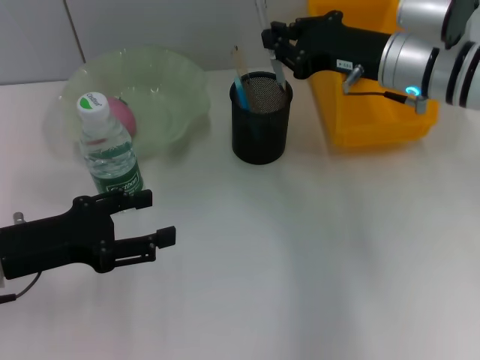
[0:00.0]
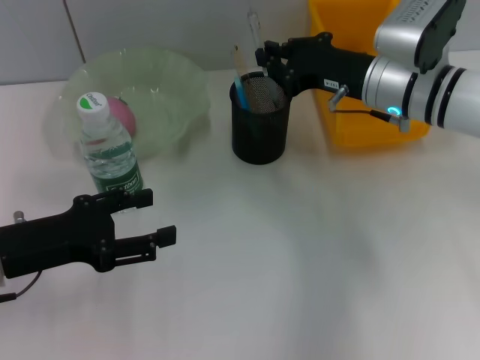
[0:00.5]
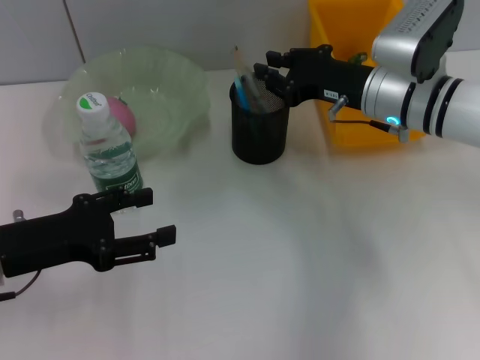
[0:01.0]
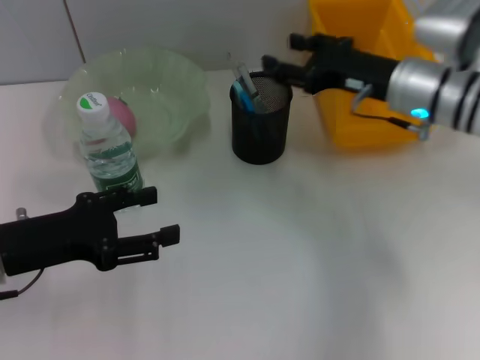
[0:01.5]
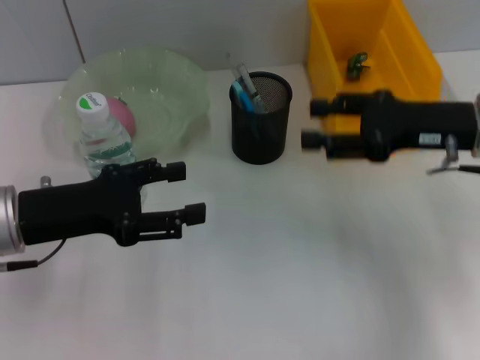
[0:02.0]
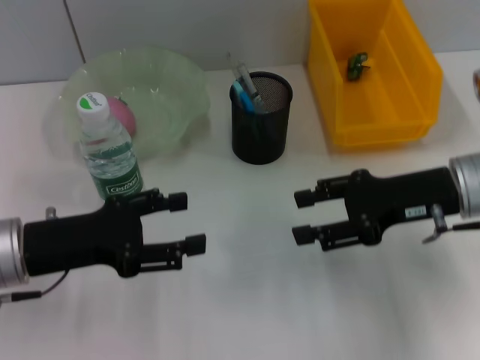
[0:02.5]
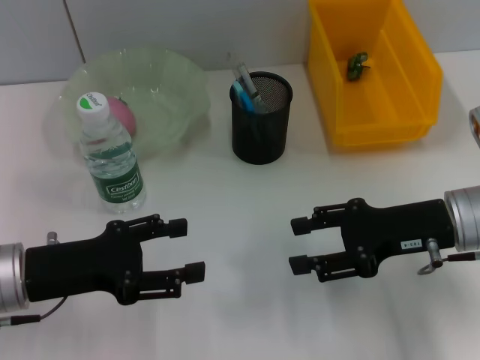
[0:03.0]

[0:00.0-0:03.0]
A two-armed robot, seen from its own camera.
0:00.0 to 0:01.5: The right gripper opens.
0:01.5 to 0:03.0: The right gripper moves backward, some 10 cm.

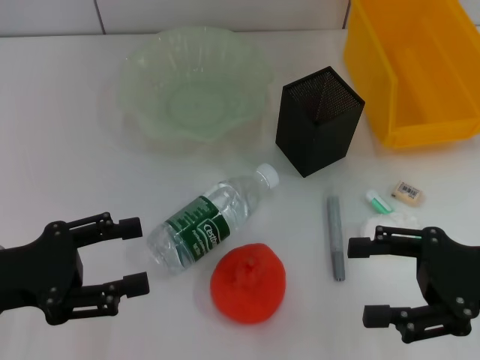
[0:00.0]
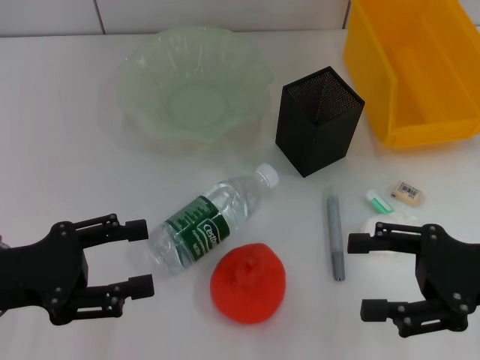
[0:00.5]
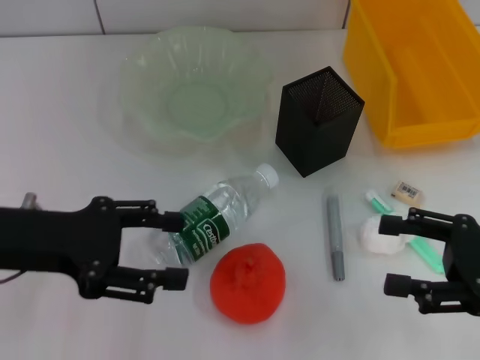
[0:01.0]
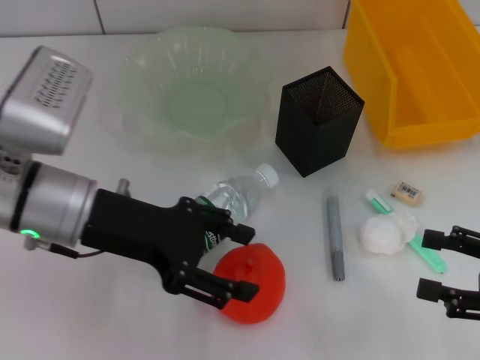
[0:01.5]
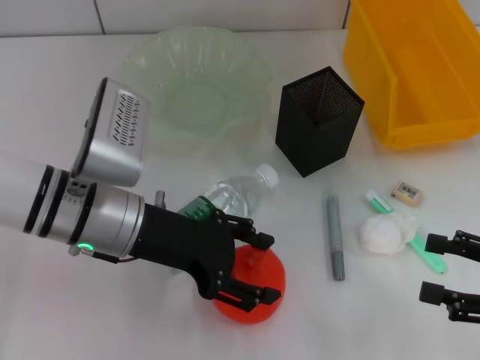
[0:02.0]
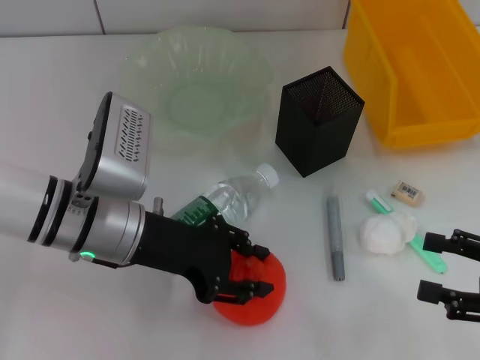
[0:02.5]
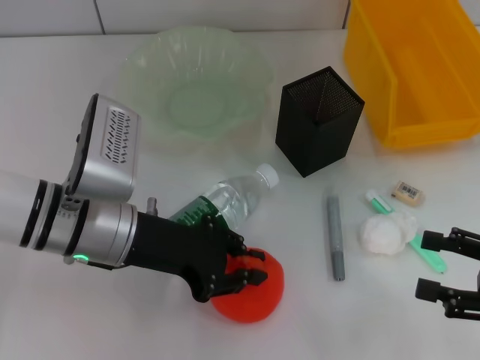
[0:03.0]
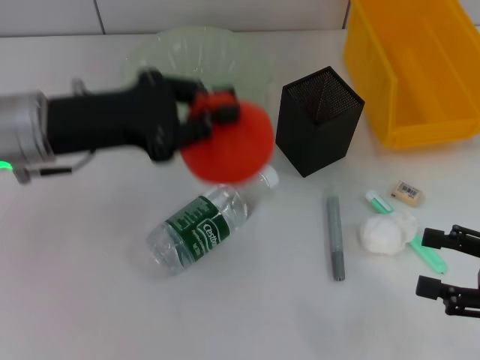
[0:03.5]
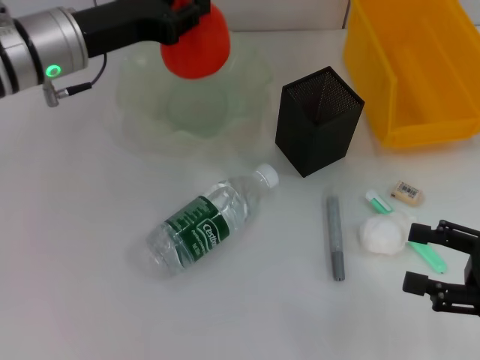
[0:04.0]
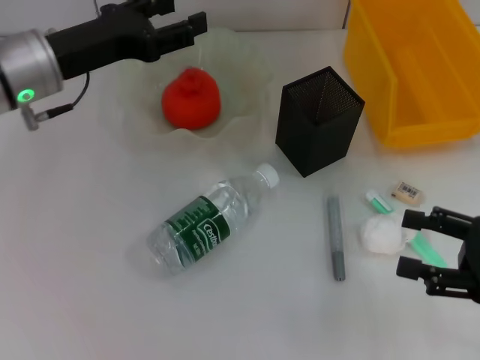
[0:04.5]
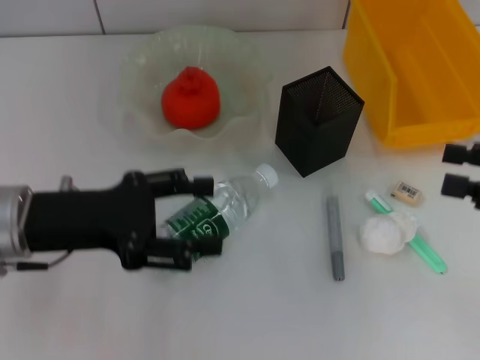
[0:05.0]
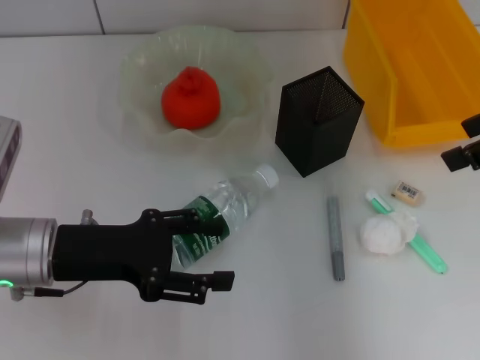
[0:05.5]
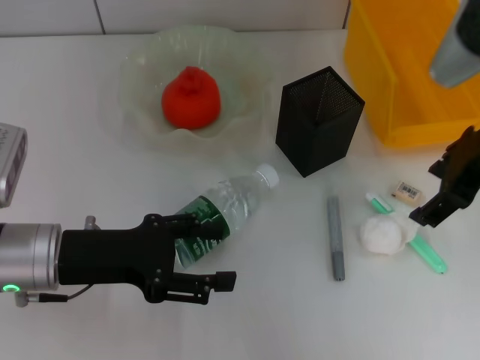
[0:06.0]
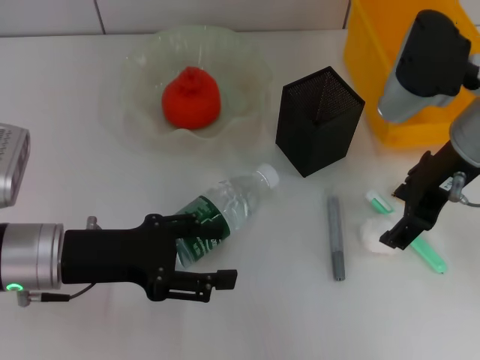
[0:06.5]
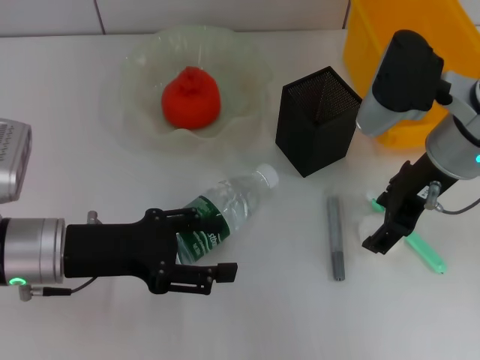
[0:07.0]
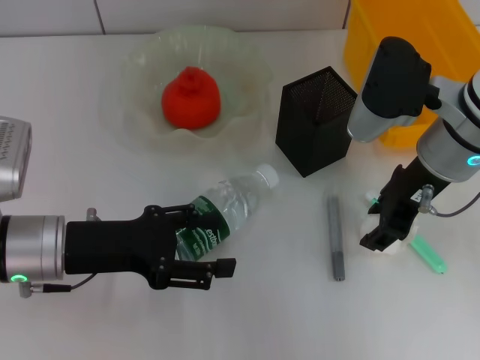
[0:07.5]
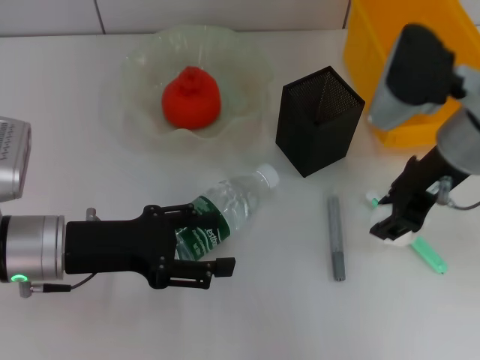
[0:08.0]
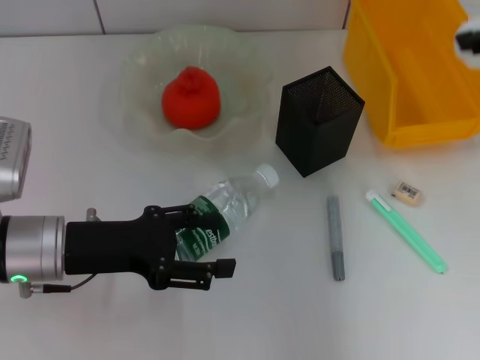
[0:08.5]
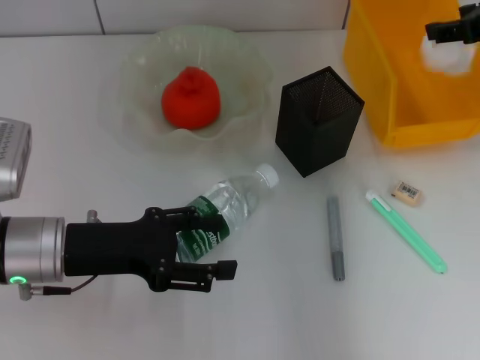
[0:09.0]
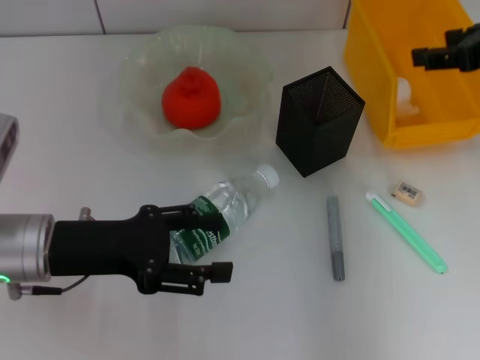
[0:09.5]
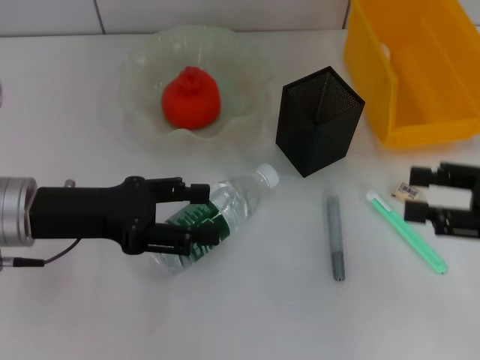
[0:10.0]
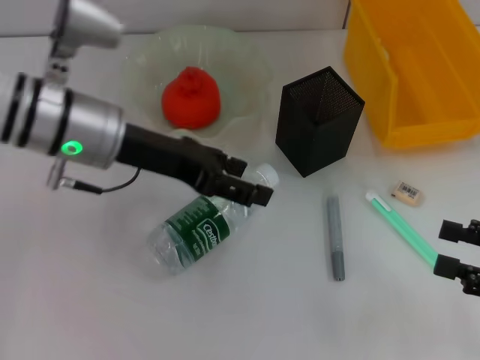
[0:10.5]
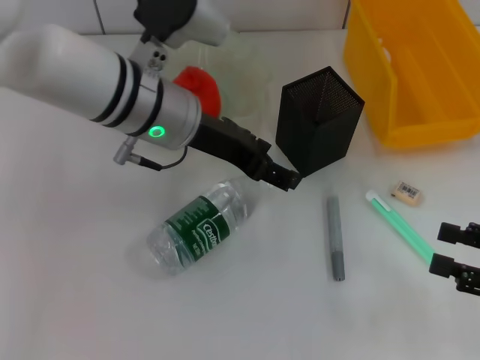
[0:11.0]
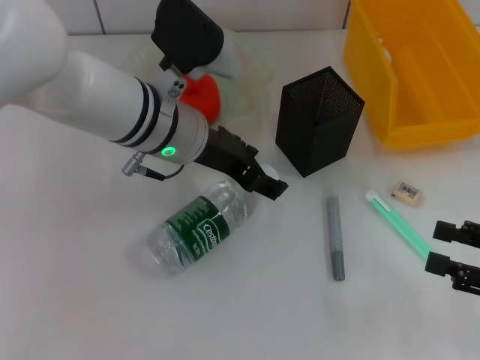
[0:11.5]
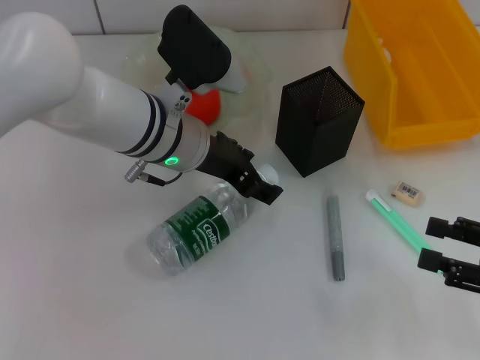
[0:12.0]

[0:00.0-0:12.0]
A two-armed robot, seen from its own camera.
Step, 0:00.0 to 0:03.0: Grab the orange with the left hand.
Step, 0:03.5 to 0:04.0: Place the orange into the fruit bowl with the left hand.
Step, 0:04.5 to 0:07.5: Grab the paper ball with the right hand.
Step, 0:08.0 to 0:09.0: Place the paper ball into the trash can with the right hand.
0:00.0 to 0:02.0: The left gripper shifts some 15 cm to the right and forward, while the right gripper moves to the right, some 5 cm.
0:02.0 to 0:04.0: The left gripper heads forward and upward, covering some 10 cm, and closes.
0:04.0 to 0:06.0: The left gripper moves backward and downward, approximately 15 cm, and opens up. The right gripper goes some 25 cm upward, forward and to the left.
0:06.0 to 0:08.0: The right gripper moves roughly 5 cm, and closes.
0:08.0 to 0:10.0: The right gripper shifts some 15 cm to the right and backward, goes upward and returns, approximately 10 cm each way, and opens up.
0:10.0 to 0:12.0: The left gripper heads to the right and forward, covering about 15 cm. Meanwhile the right gripper moves downward, some 5 cm.

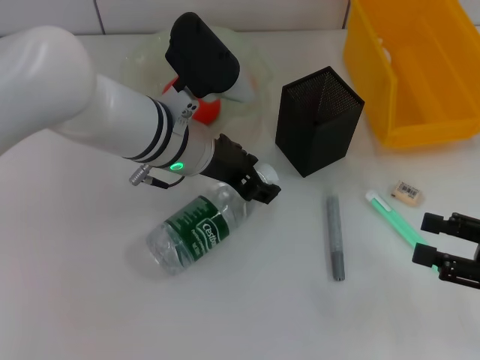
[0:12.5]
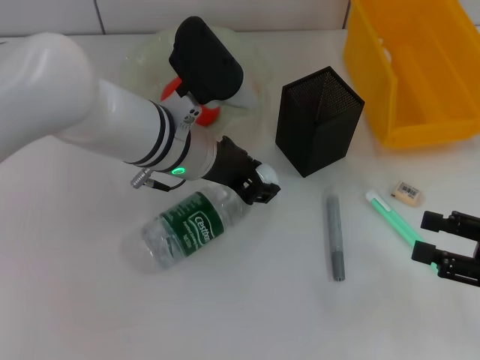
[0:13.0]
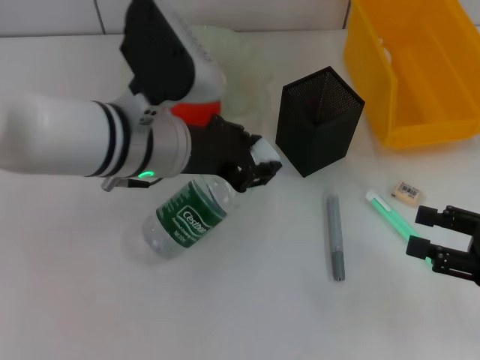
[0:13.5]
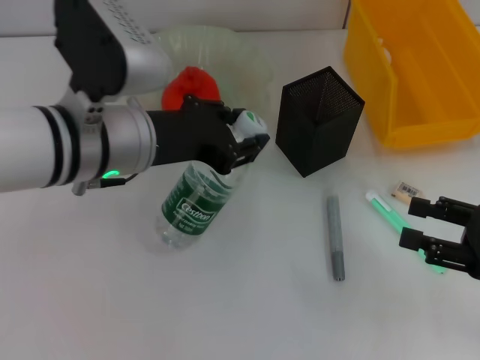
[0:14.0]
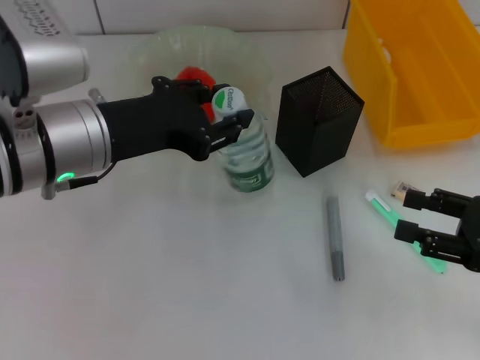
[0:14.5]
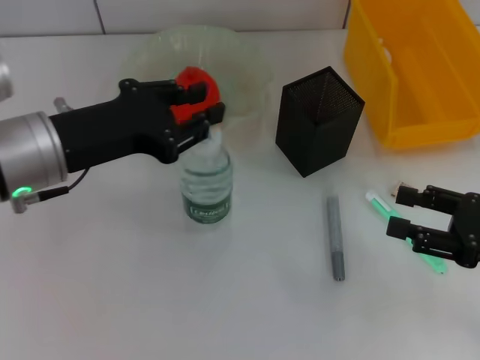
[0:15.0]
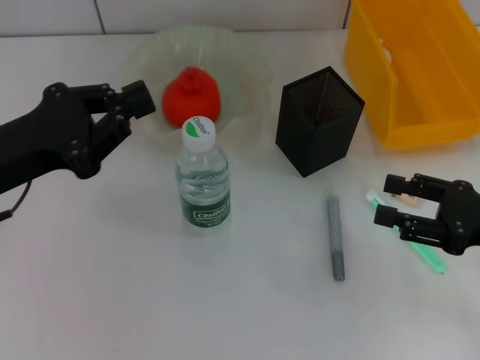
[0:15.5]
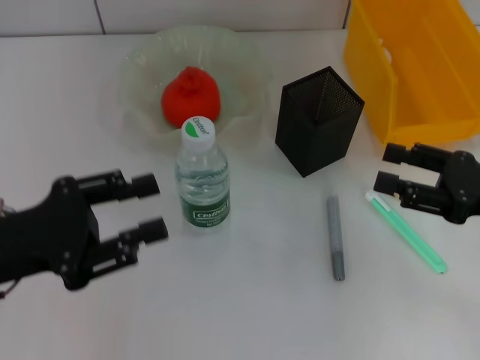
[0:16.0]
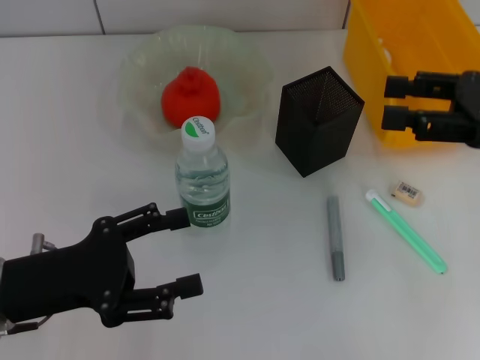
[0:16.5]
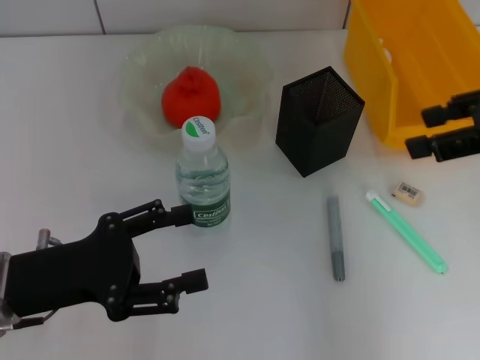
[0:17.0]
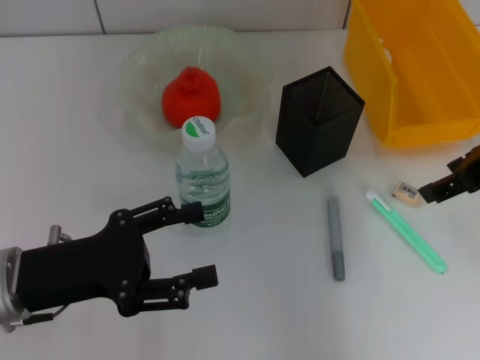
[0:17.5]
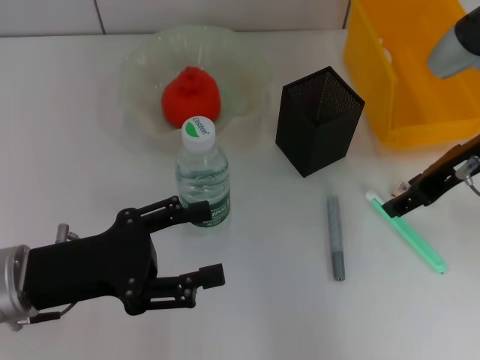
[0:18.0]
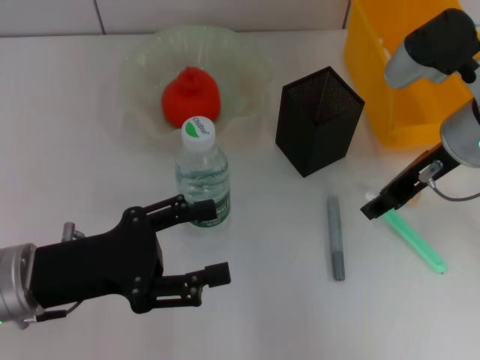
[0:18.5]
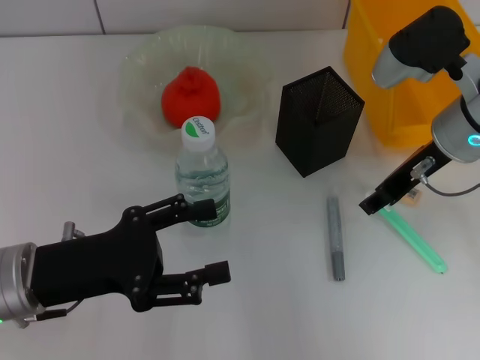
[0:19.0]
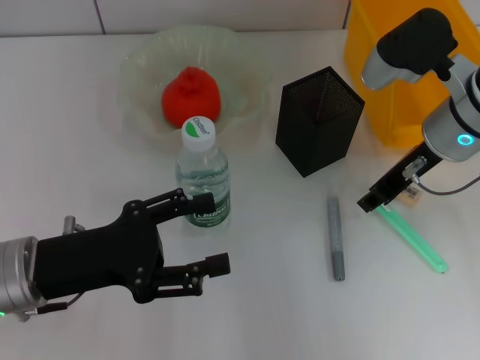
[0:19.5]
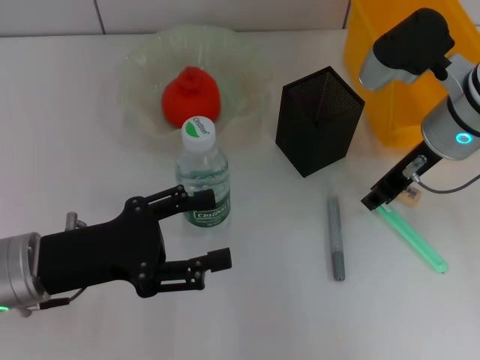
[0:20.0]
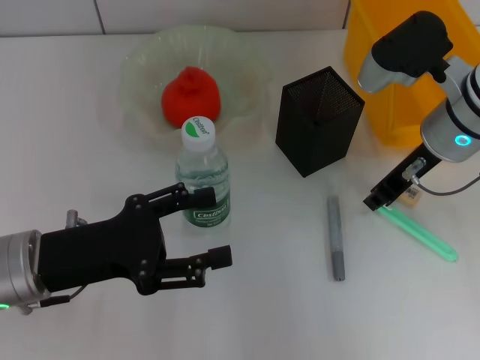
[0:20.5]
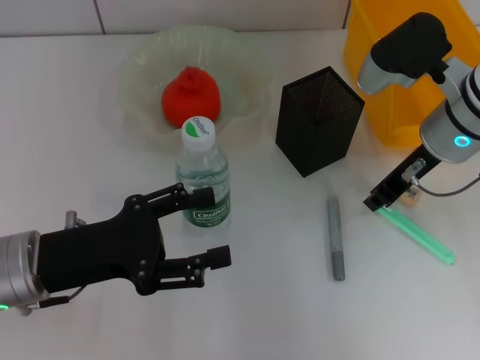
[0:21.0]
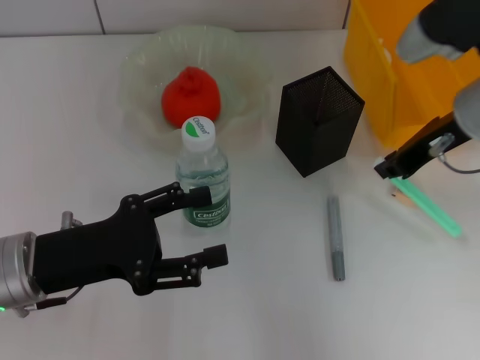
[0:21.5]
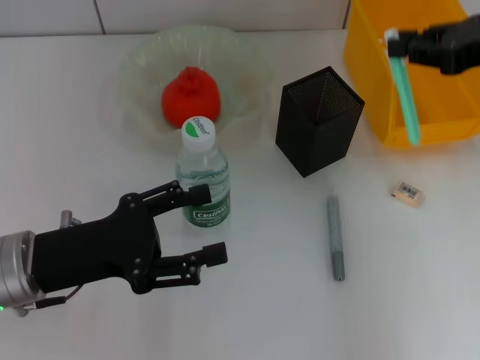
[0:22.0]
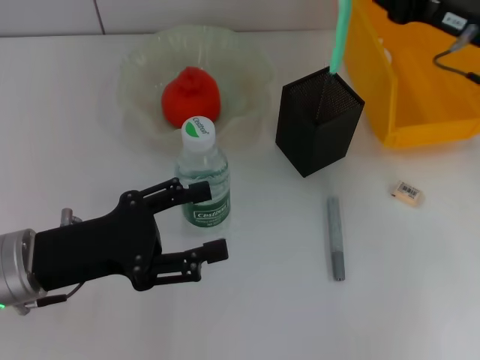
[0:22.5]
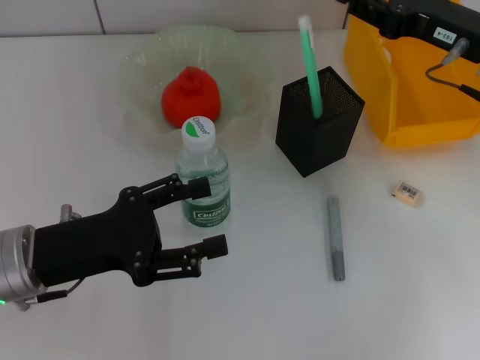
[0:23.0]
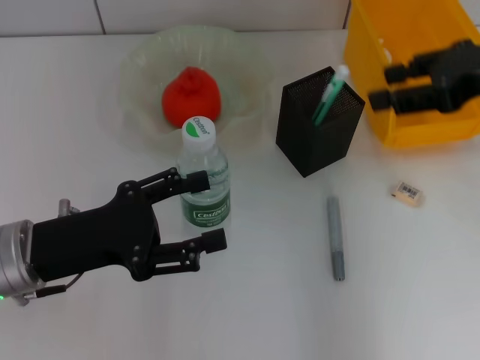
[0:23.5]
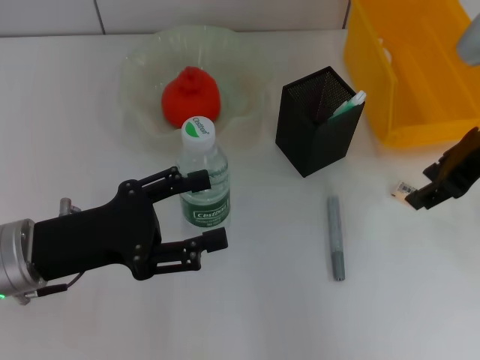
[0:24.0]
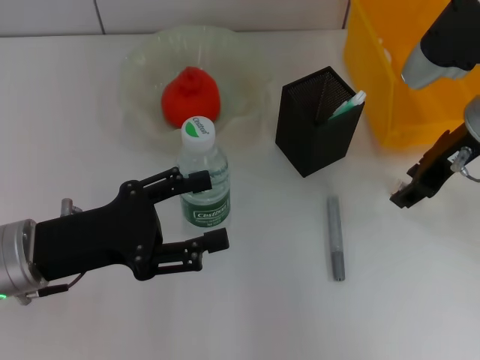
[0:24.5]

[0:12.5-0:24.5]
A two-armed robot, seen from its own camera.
Step, 0:13.0 to 0:15.0: Place the water bottle on the table with the left hand.
Step, 0:15.5 to 0:21.0: Grab the blue utility knife with the right hand.
Step, 0:21.5 to 0:23.0: Place the blue utility knife into the pen holder with the right hand.
0:12.5 to 0:14.5: The left gripper travels to the left, backward and upward by about 10 cm, and closes its fingers.
0:14.5 to 0:16.5: The right gripper moves upward and forward, about 15 cm; the left gripper shifts approximately 15 cm to the left, downward and backward, and opens.
0:16.5 to 0:18.5: The right gripper moves to the left and forward, about 10 cm.
0:18.5 to 0:20.5: The right gripper closes up.
0:20.5 to 0:22.5: The right gripper heads to the right, covering some 5 cm.
0:22.5 to 0:24.5: The right gripper opens its fingers.
